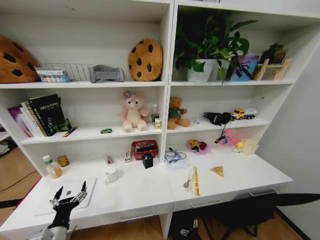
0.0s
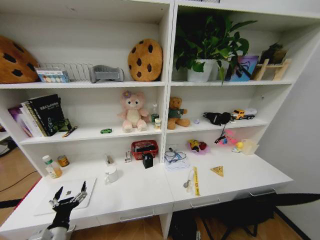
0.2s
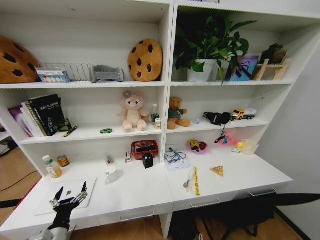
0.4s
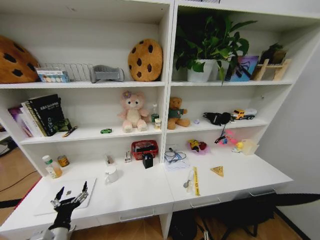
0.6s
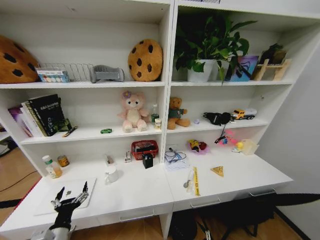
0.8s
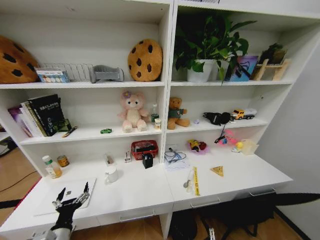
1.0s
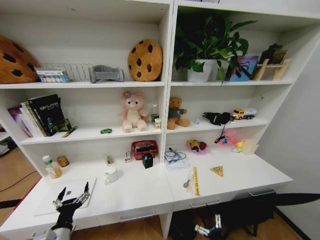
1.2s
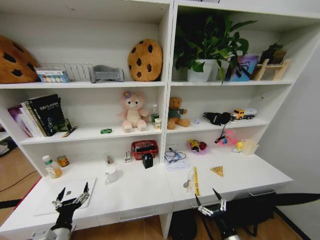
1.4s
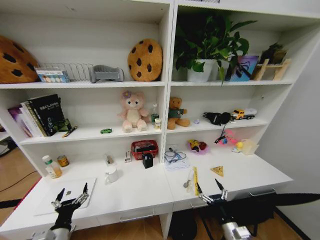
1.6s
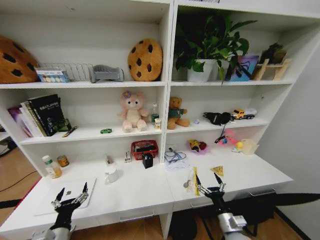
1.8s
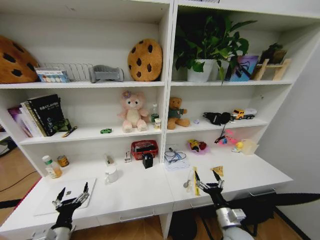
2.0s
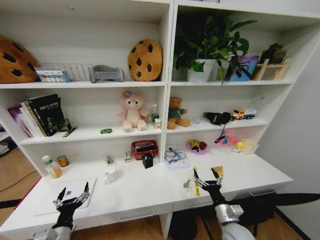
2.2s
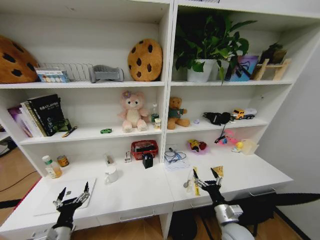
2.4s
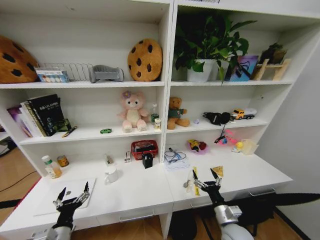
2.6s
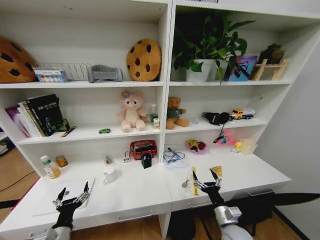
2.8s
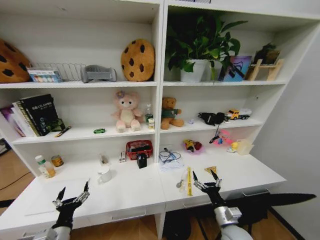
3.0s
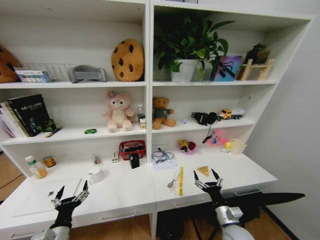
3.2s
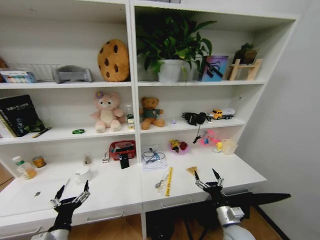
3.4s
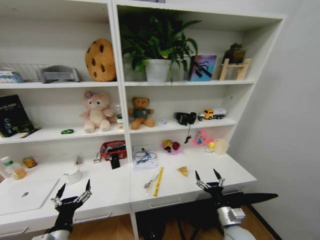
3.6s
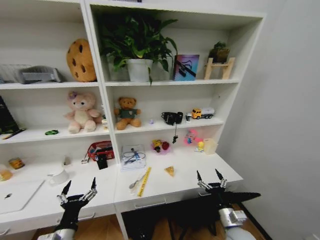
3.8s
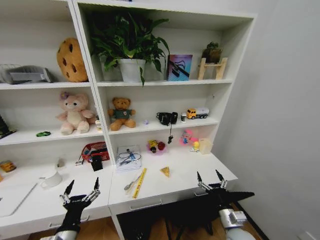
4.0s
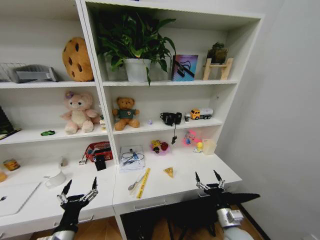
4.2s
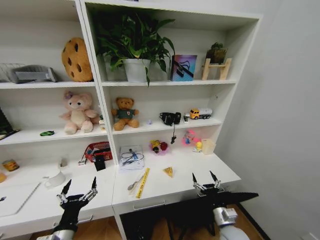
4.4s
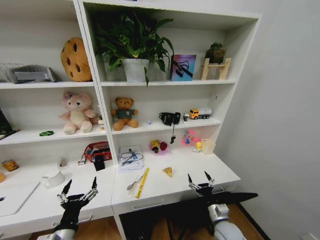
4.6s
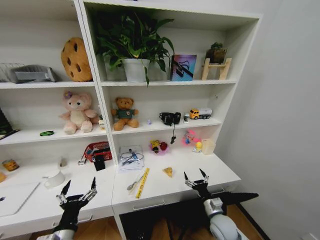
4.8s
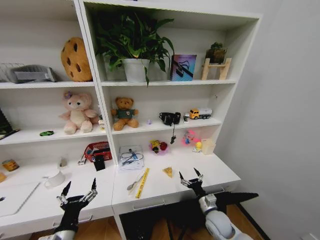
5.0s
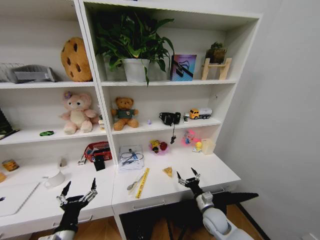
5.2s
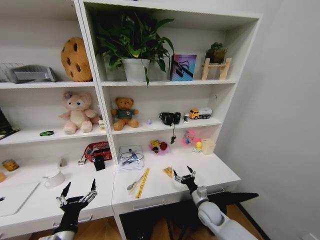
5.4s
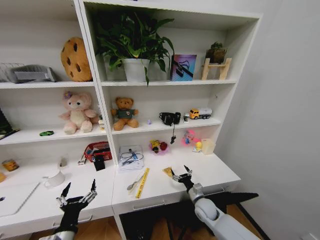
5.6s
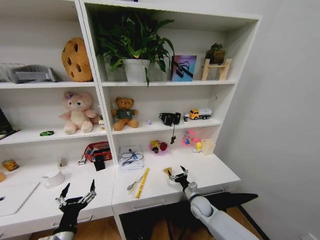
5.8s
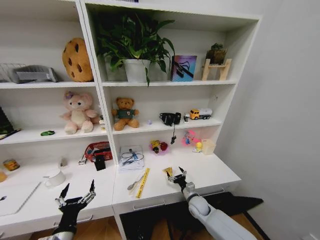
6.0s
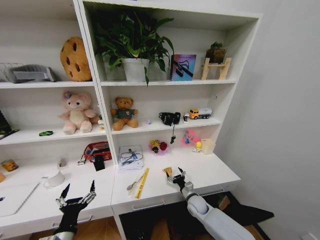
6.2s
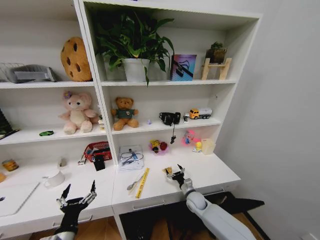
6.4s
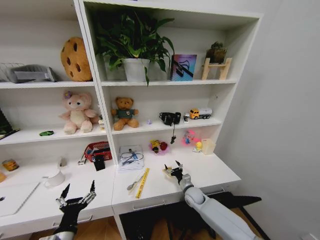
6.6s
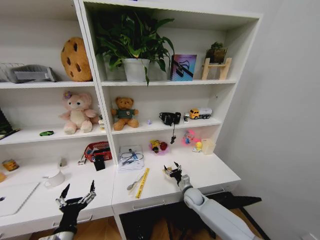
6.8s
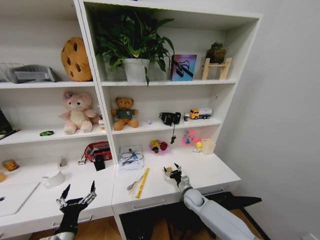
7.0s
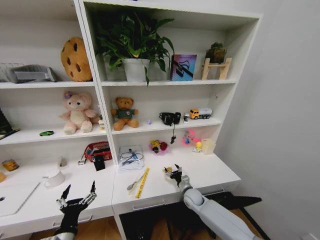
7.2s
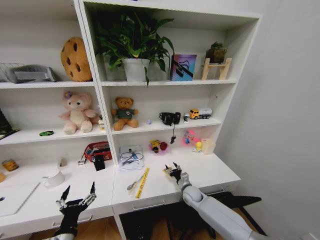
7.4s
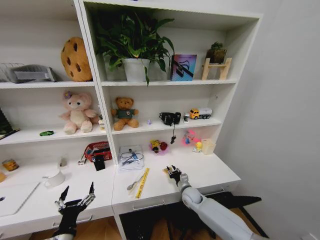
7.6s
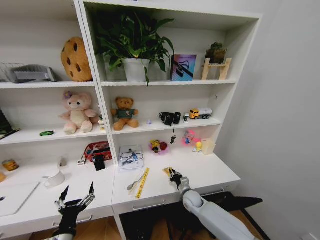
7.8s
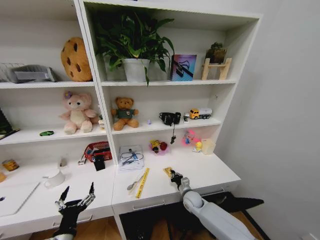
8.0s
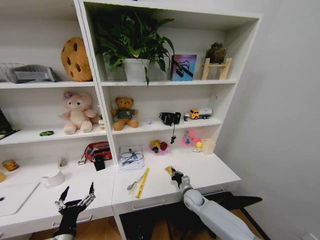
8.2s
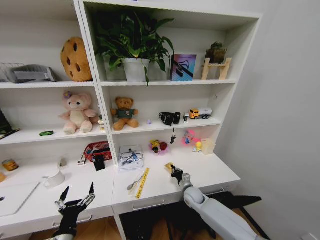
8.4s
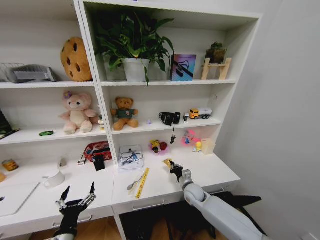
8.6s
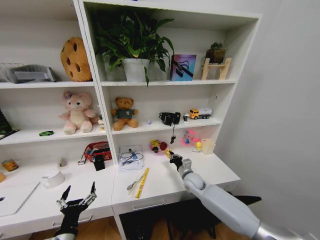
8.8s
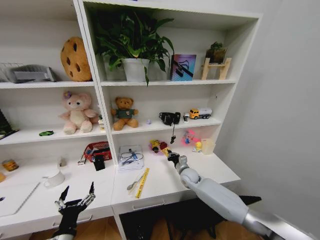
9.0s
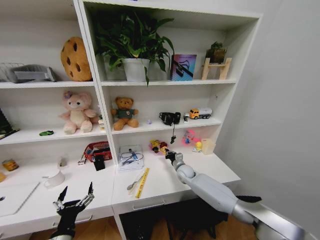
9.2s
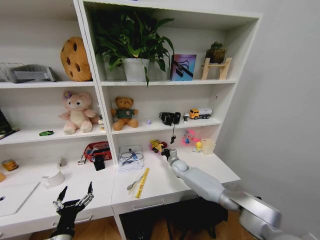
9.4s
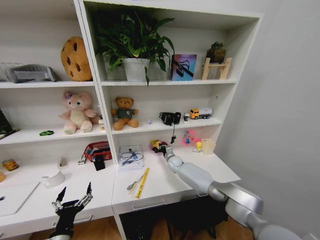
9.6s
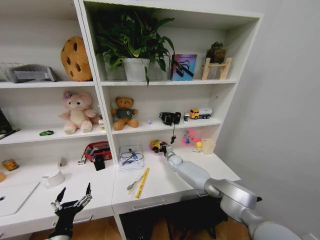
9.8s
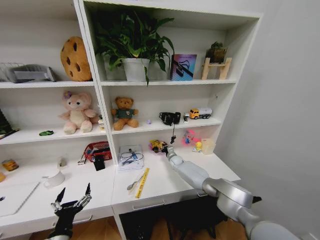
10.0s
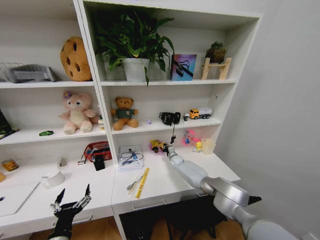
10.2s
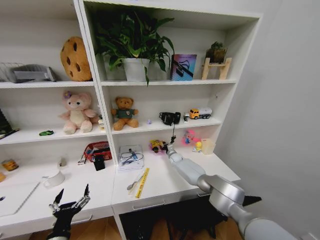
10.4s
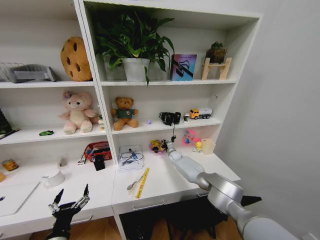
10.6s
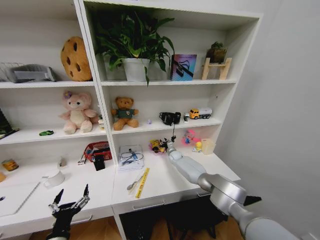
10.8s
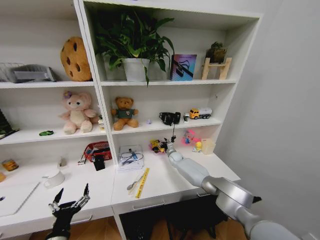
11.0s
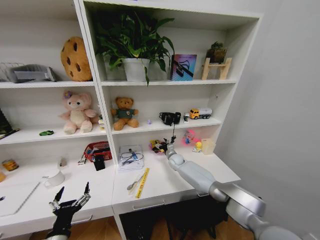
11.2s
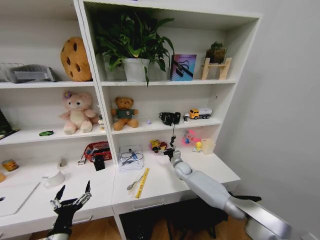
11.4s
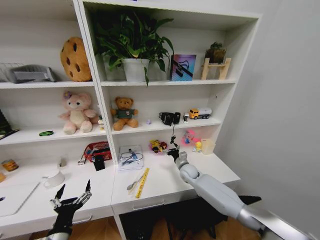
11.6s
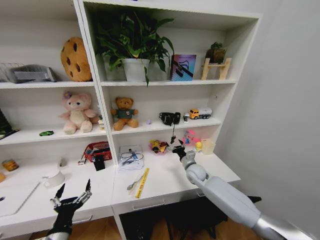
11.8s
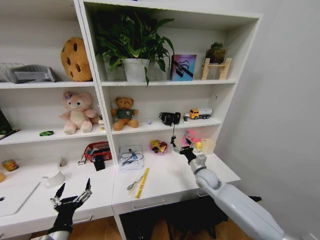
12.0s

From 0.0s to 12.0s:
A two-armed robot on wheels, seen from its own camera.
Task of the whole recording: Organize the objects on the table.
From 0.0s to 1.6s: The right gripper goes roughly 30 cm upward.
From 1.6s to 3.0s: The right gripper shifts by some 10 cm.
From 3.0s to 4.4s: The left gripper travels upward by some 5 cm.
From 4.4s to 6.0s: The right gripper shifts roughly 15 cm forward, downward and to the left.
From 6.0s to 7.6s: The right gripper shifts by some 5 cm, and closes up.
From 7.6s to 9.0s: The right gripper goes roughly 10 cm upward and forward, and closes its fingers.
From 9.0s to 10.4s: The right gripper moves forward, roughly 15 cm.
From 10.4s to 12.0s: The right gripper shifts about 25 cm backward, upward and to the right, and opens.

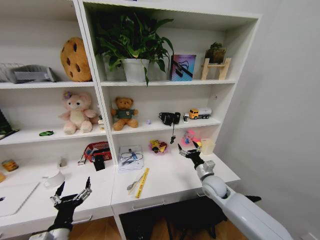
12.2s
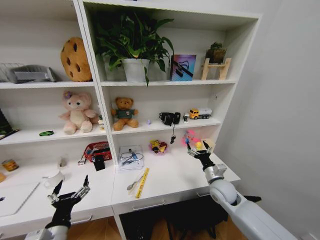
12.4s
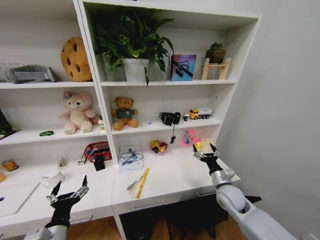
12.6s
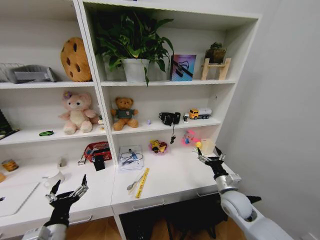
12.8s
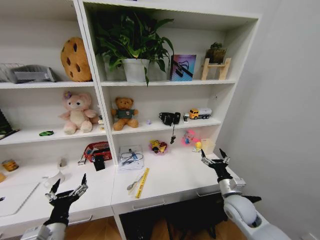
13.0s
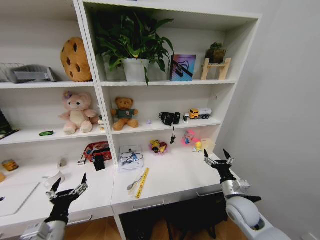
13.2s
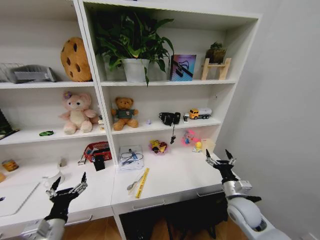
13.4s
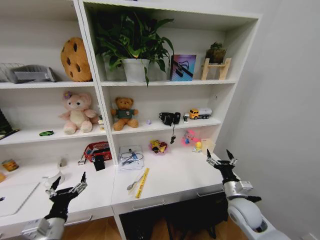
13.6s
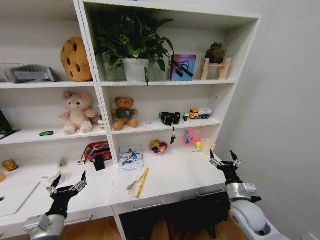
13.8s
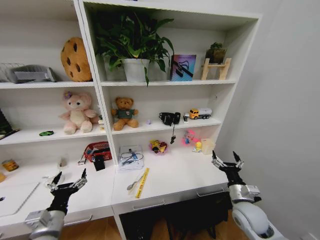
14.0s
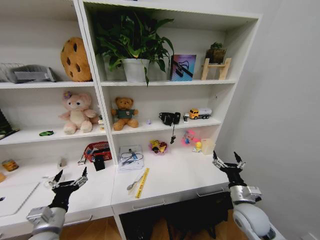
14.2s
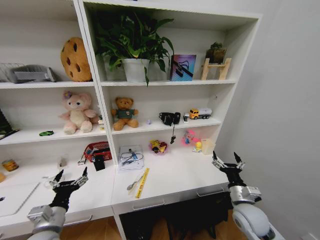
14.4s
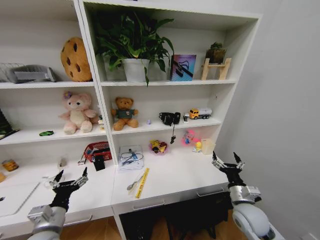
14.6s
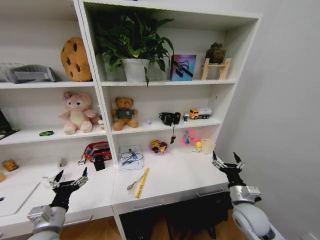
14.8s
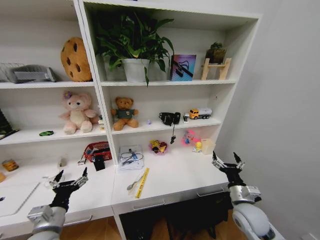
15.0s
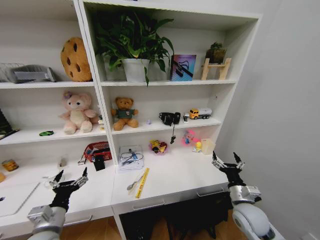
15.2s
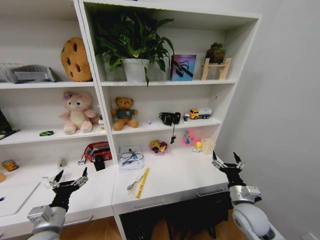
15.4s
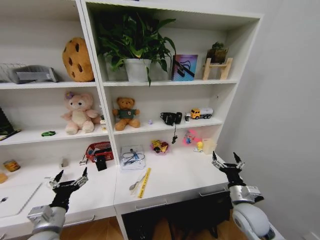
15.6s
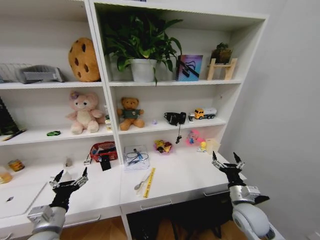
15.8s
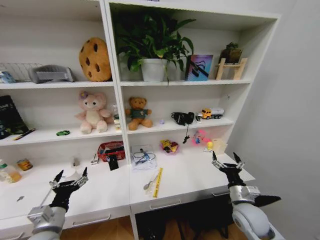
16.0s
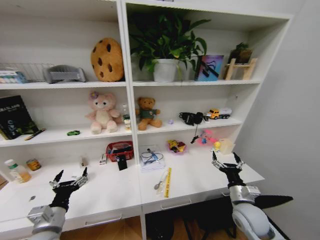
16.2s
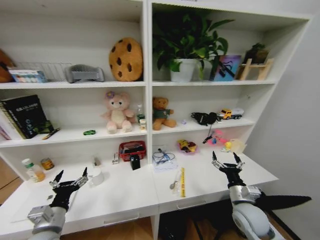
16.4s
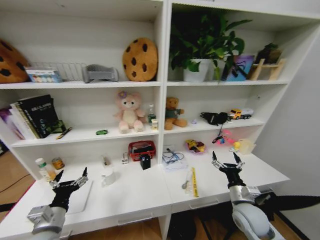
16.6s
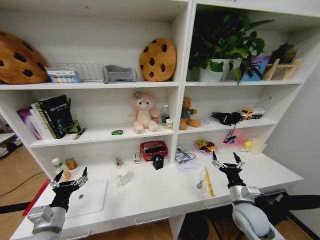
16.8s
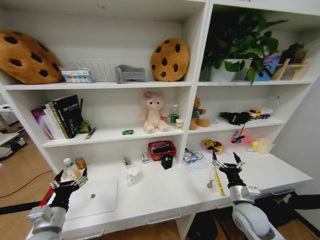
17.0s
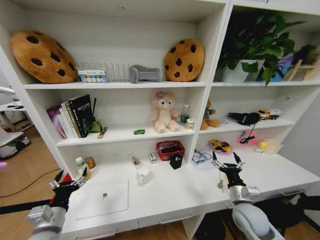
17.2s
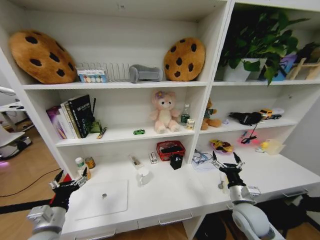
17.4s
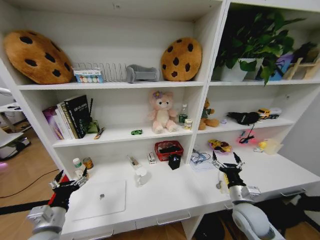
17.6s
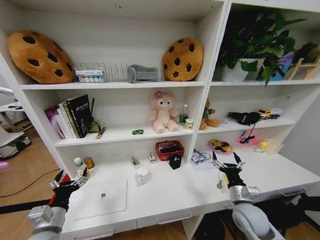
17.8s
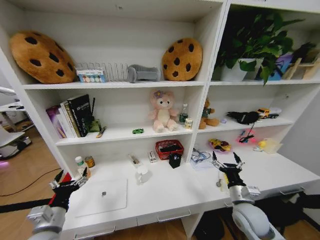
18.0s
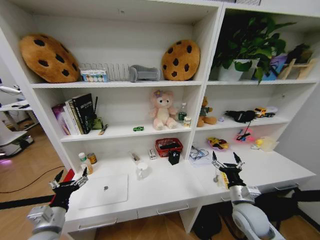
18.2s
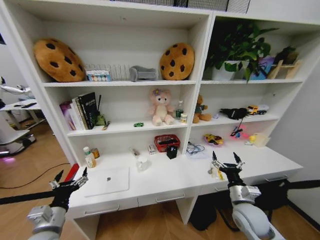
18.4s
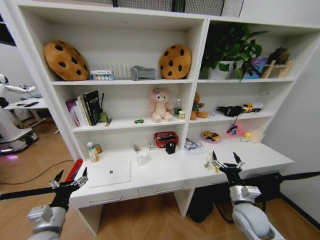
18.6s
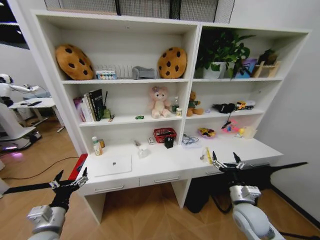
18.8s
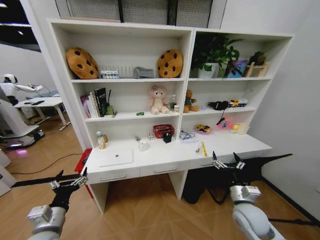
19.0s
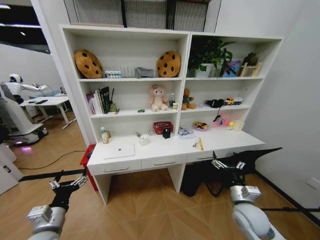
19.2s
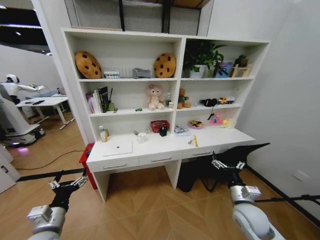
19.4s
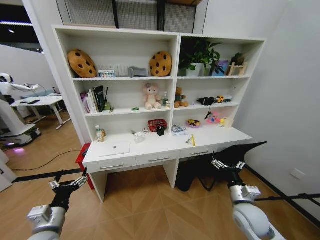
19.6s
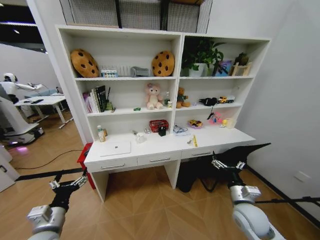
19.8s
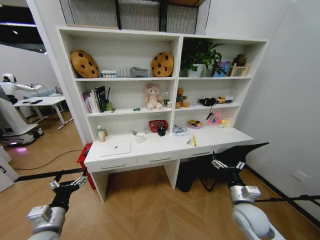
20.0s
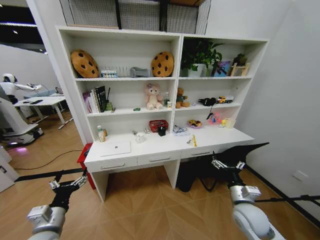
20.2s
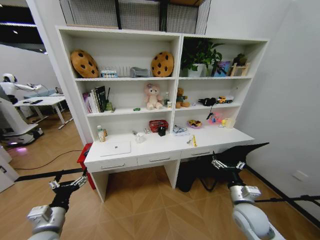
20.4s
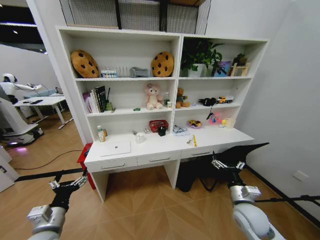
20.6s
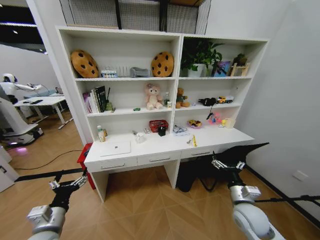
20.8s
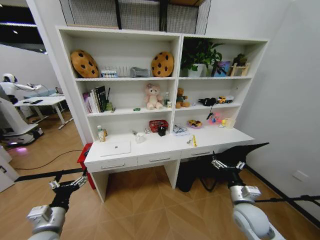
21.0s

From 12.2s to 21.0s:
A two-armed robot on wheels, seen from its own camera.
Task of the whole recording: Organize the objects on the table.
From 12.2s to 13.6s: The right gripper heads backward and to the right, covering approximately 10 cm.
From 13.6s to 15.2s: There are only small adjustments of the grippers.
From 19.6s to 21.0s: The two grippers keep their place.

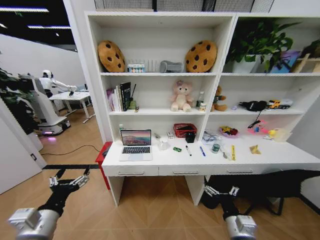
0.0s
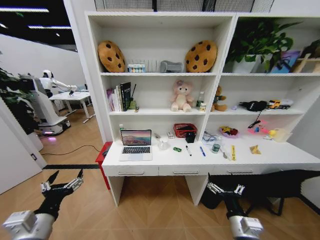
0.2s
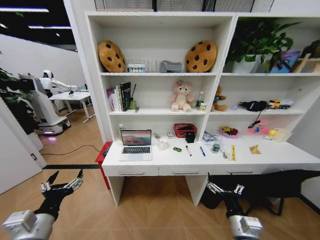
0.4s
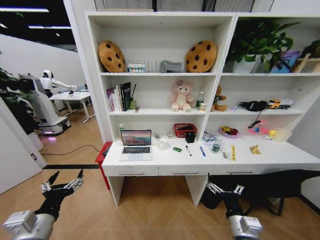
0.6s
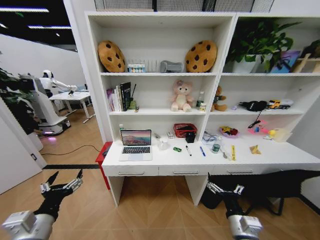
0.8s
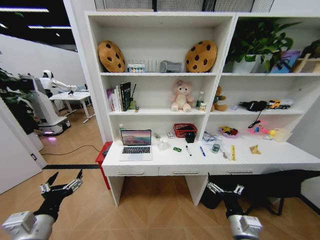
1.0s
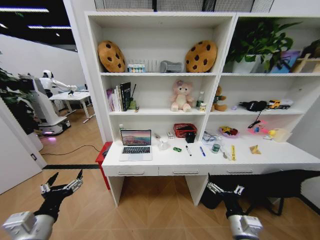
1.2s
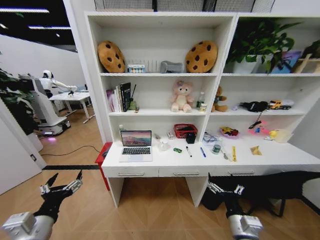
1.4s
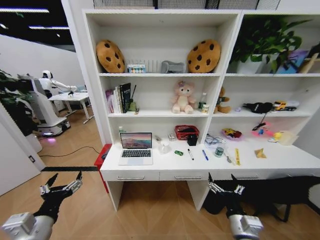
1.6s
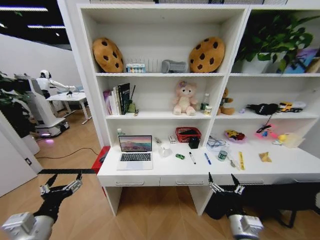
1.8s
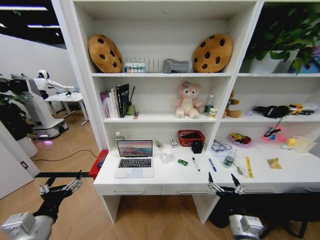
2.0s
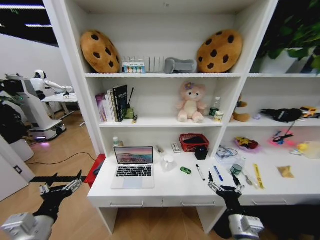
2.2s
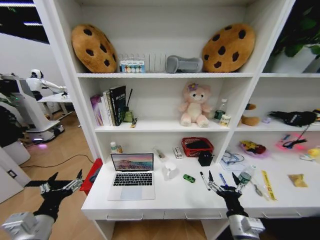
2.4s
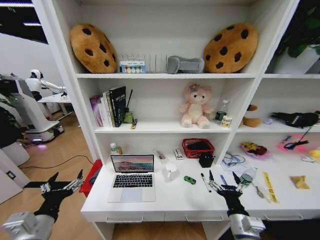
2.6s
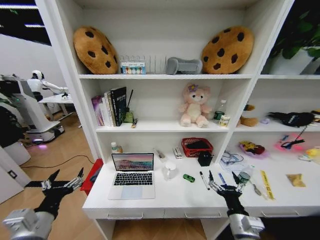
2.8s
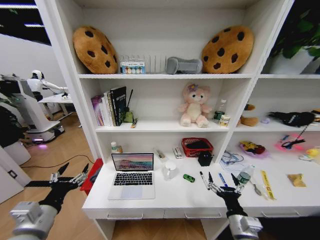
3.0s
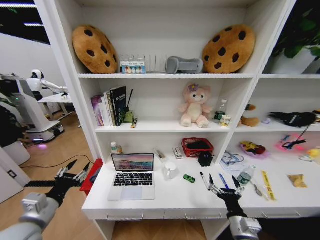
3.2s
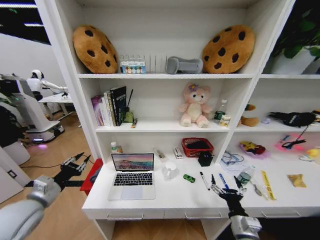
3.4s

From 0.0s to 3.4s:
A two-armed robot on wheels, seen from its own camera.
Task of the whole recording: Organize the objects on the table.
From 1.6s to 3.4s: The left gripper is displaced forward and to the left by some 10 cm, and closes.
